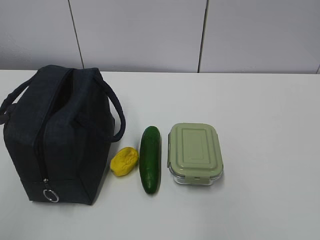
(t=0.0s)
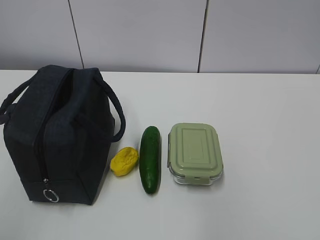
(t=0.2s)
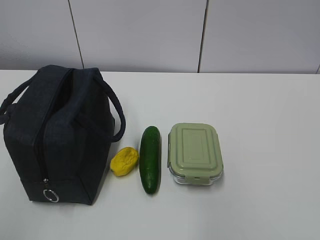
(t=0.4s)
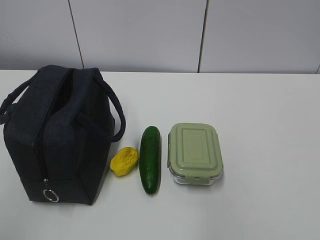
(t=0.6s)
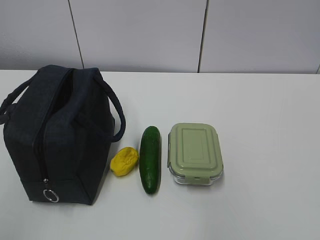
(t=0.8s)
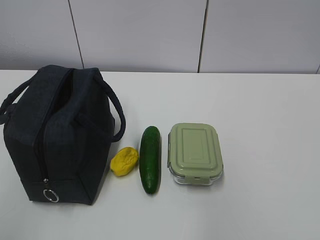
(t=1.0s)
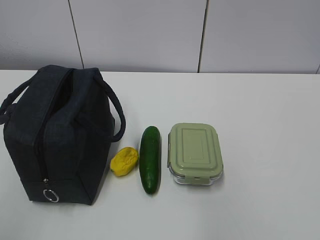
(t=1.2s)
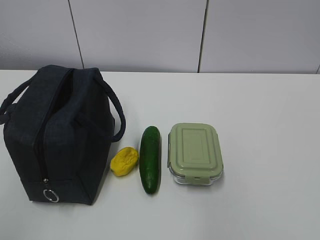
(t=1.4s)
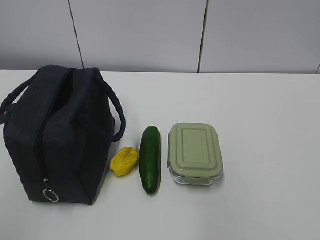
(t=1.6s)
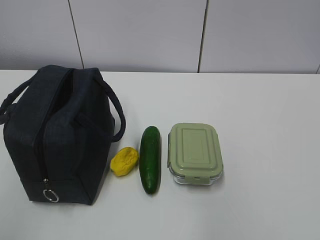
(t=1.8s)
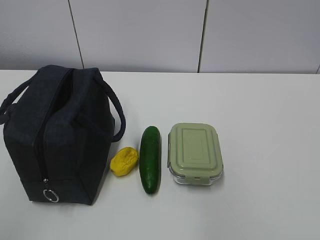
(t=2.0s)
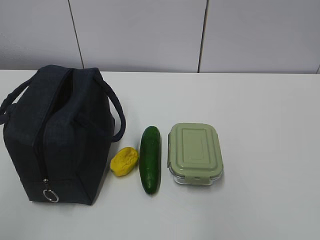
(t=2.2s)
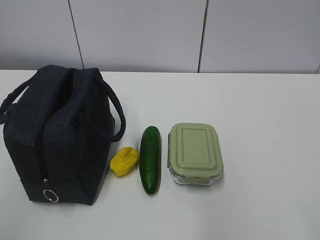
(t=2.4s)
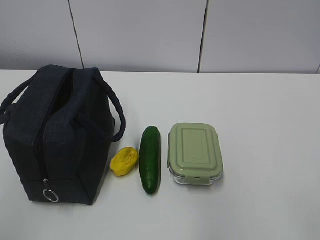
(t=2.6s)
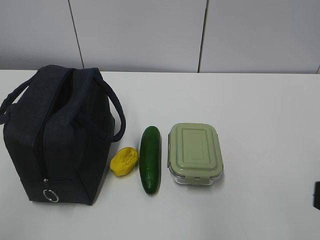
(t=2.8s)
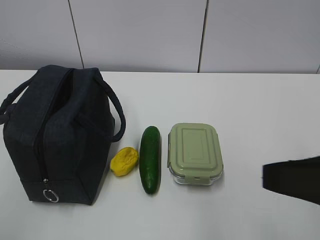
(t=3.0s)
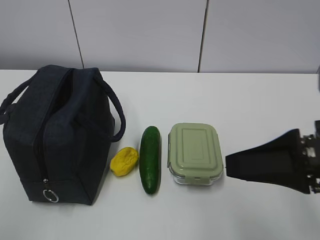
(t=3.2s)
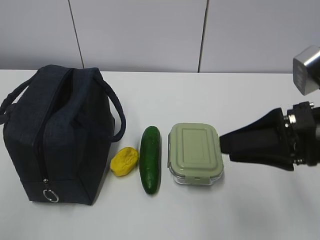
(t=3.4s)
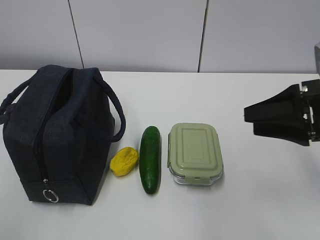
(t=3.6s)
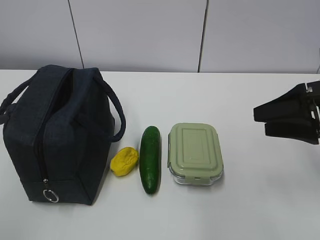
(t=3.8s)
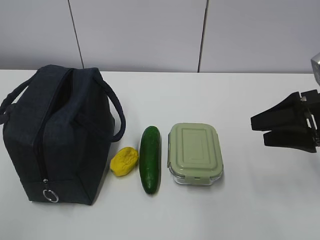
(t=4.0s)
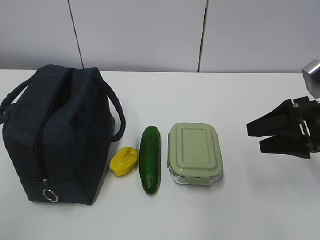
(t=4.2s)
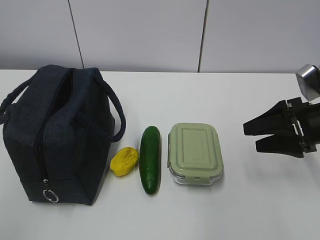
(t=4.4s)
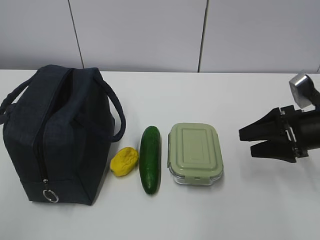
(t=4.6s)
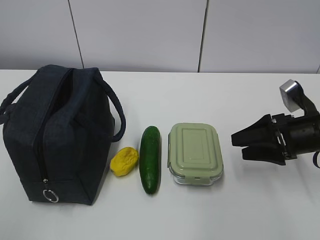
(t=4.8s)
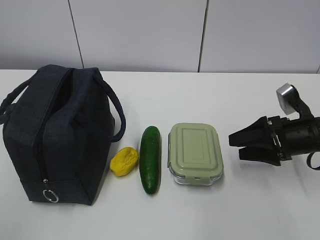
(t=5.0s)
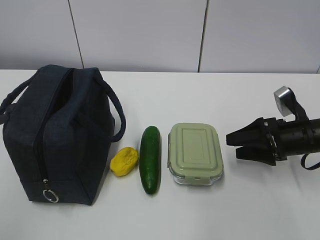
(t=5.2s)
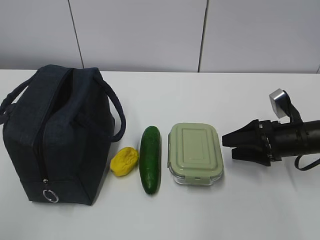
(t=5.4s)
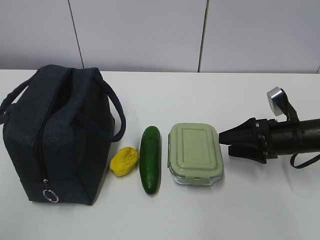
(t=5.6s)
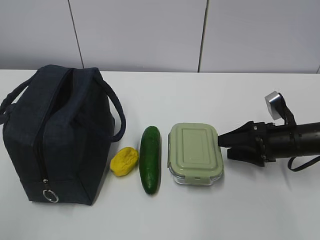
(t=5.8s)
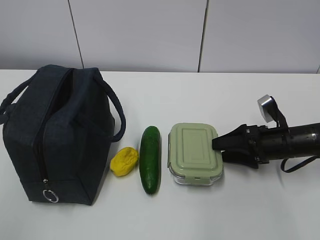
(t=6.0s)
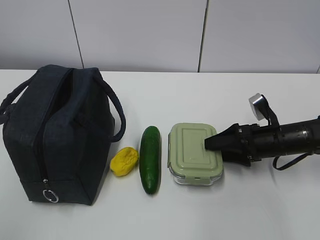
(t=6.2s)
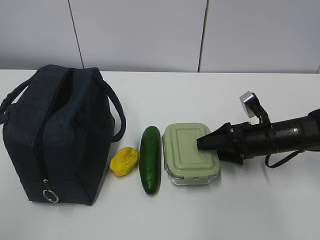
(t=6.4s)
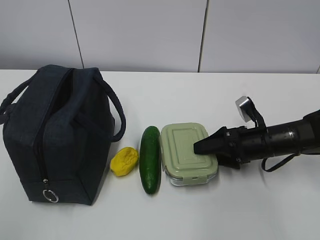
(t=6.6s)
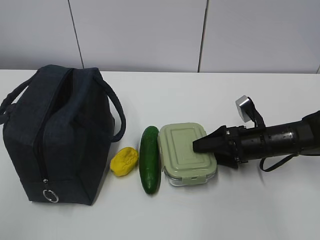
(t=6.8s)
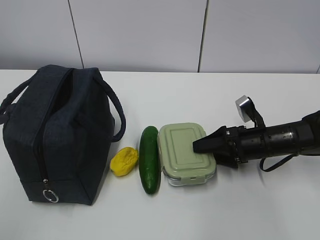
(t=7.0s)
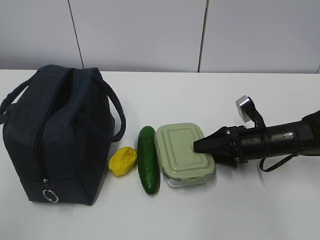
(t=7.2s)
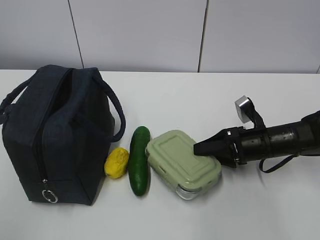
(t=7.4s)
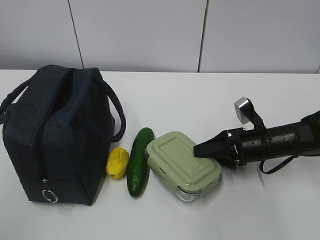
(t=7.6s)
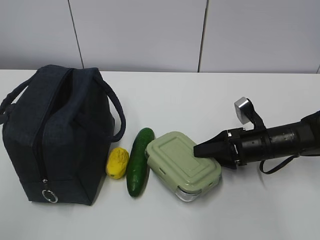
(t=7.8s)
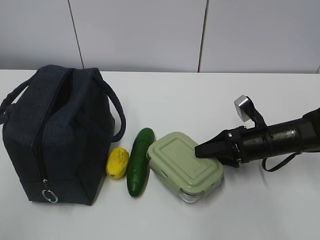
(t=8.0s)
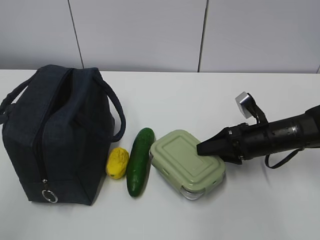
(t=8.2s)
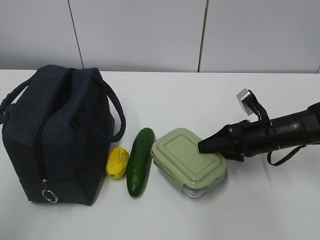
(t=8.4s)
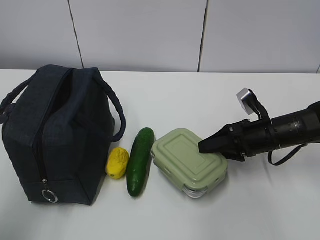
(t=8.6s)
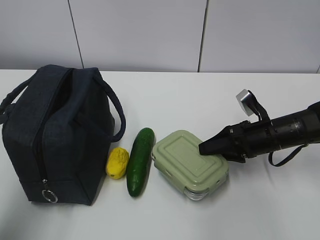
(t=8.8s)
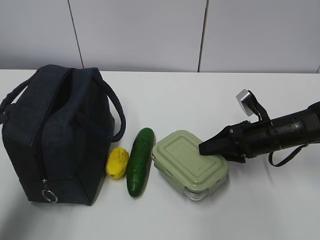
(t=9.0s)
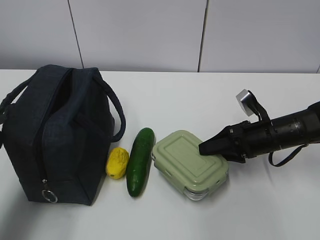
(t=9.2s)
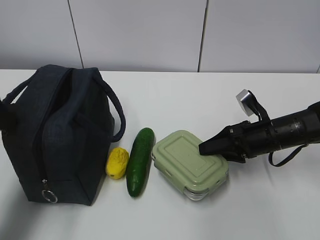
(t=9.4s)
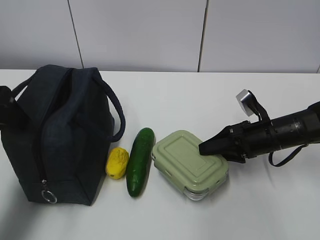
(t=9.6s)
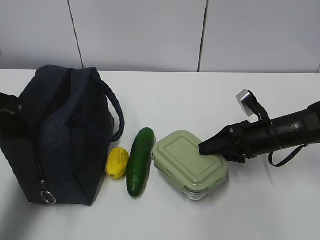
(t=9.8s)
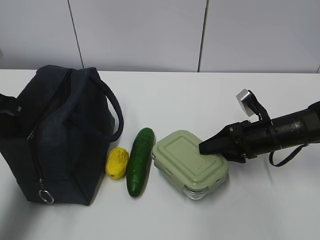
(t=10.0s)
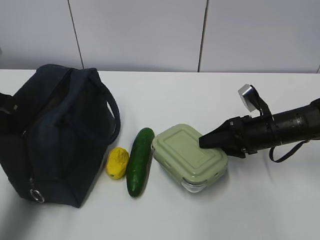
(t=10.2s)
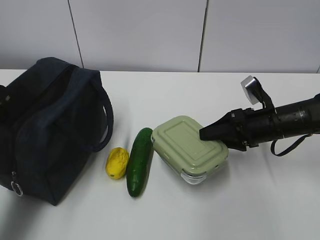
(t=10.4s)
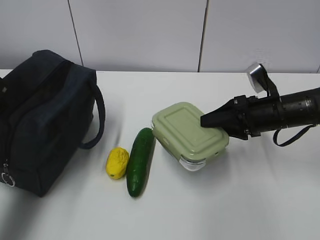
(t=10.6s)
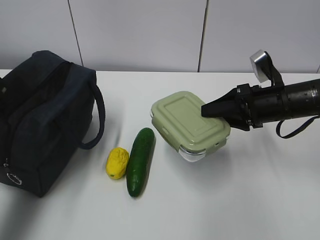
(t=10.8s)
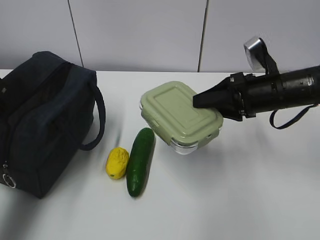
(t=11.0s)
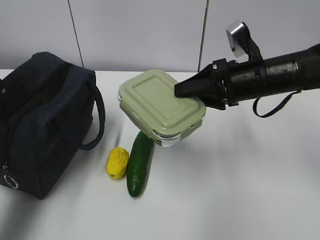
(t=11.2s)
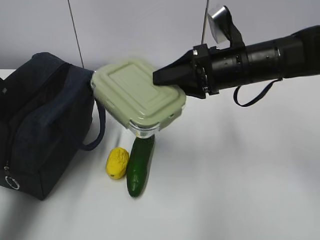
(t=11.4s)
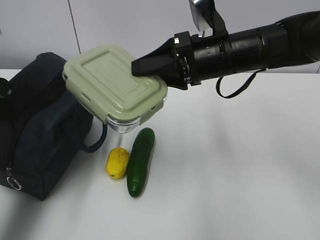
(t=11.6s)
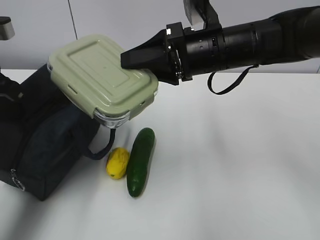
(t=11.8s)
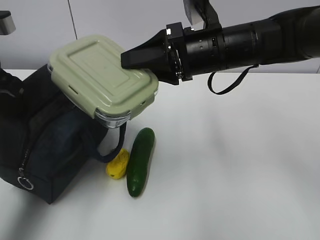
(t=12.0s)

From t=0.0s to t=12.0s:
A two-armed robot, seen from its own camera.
Step, from t=0.0s to t=8.2s: Grab the lunch box with your right hand.
Step, from t=8.4s to t=10.0s: Grab the lunch bag with your left hand.
From t=1.6s to t=3.0s: The right gripper heads forward and to the left, covering approximately 15 cm.
From t=3.0s to t=4.4s: The right gripper moves forward, downward and to the right, approximately 25 cm, and opens up.
From t=4.4s to t=6.0s: The right gripper travels downward by about 10 cm.
From t=6.0s to t=7.6s: The right gripper closes its fingers.
From t=7.6s to t=9.0s: The left gripper moves forward, some 15 cm.
From t=9.0s to t=10.4s: The left gripper heads forward, covering some 15 cm, and closes its fingers.
From t=10.4s to t=12.0s: The right gripper moves upward and to the left, about 20 cm.

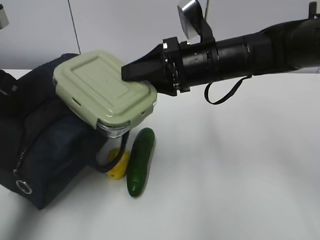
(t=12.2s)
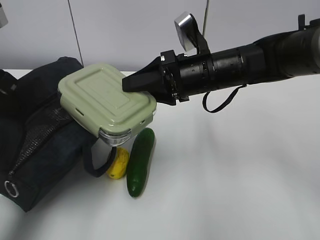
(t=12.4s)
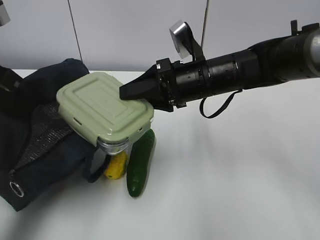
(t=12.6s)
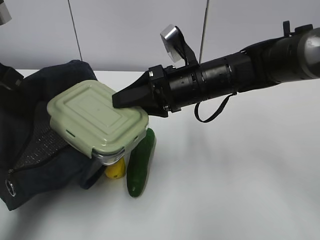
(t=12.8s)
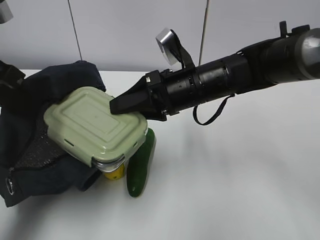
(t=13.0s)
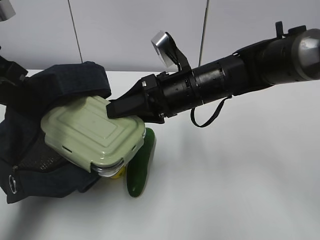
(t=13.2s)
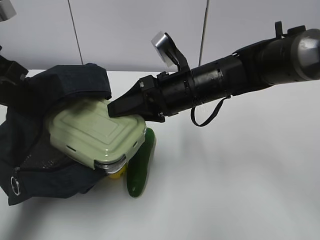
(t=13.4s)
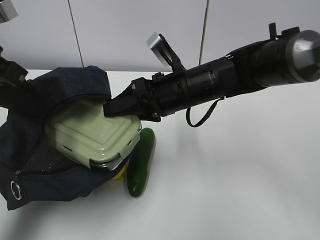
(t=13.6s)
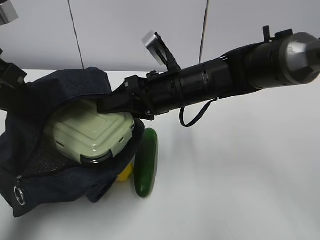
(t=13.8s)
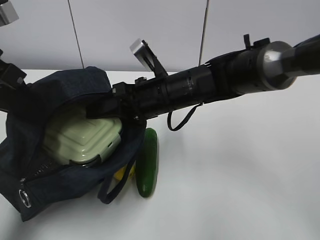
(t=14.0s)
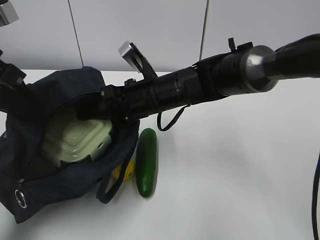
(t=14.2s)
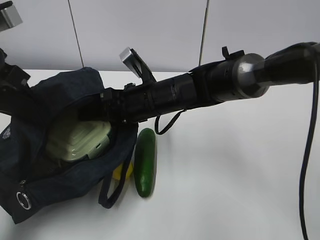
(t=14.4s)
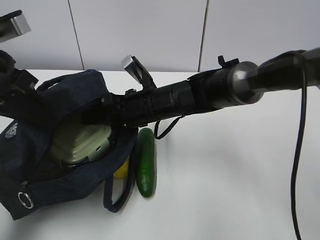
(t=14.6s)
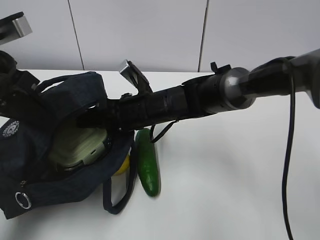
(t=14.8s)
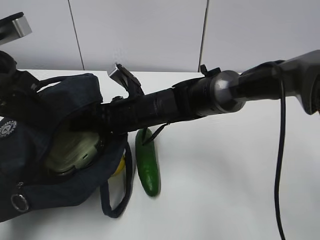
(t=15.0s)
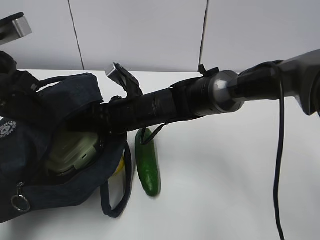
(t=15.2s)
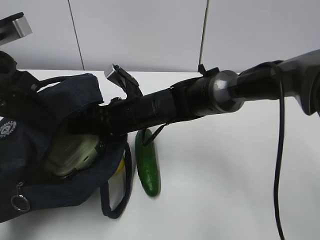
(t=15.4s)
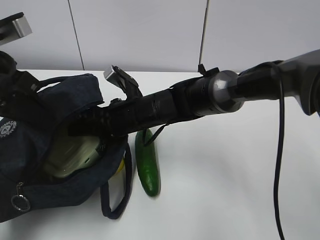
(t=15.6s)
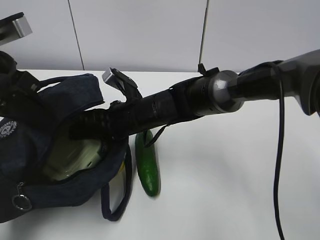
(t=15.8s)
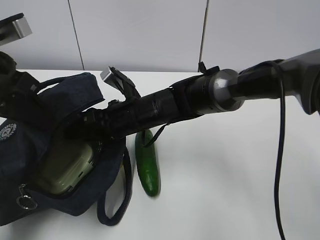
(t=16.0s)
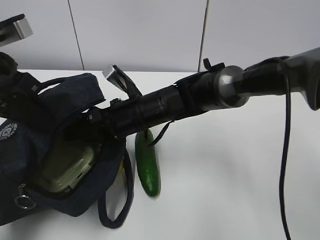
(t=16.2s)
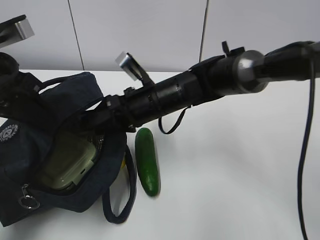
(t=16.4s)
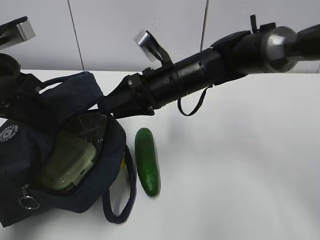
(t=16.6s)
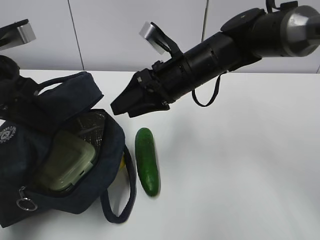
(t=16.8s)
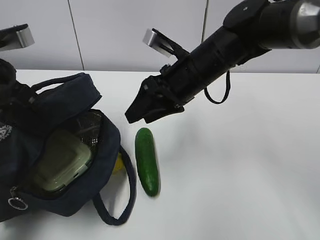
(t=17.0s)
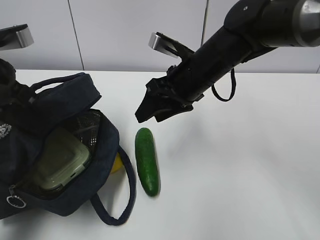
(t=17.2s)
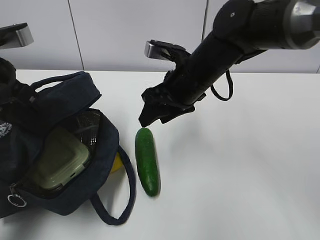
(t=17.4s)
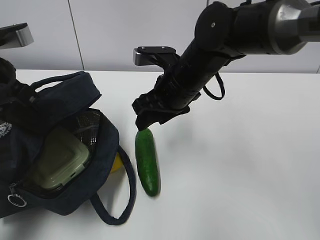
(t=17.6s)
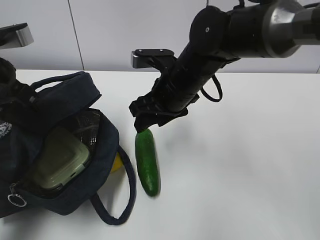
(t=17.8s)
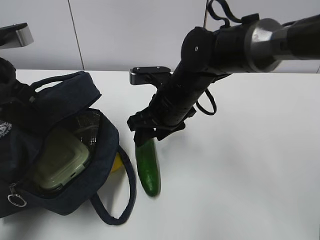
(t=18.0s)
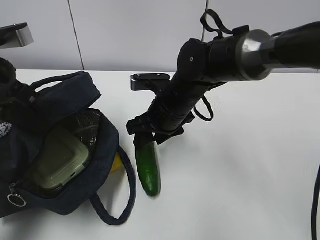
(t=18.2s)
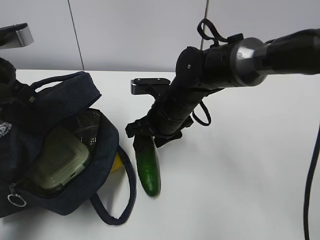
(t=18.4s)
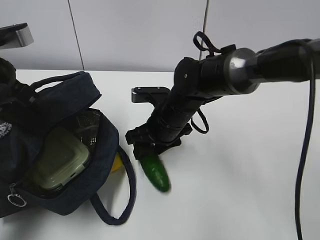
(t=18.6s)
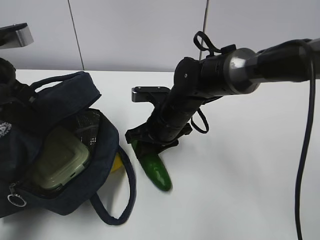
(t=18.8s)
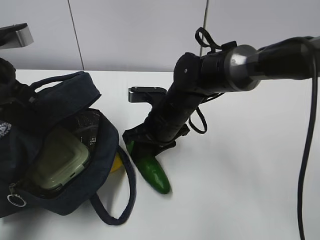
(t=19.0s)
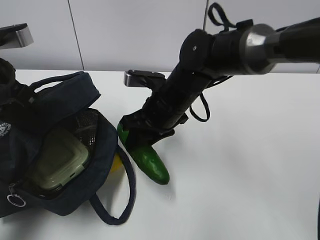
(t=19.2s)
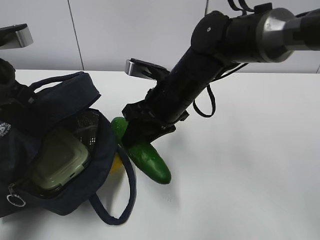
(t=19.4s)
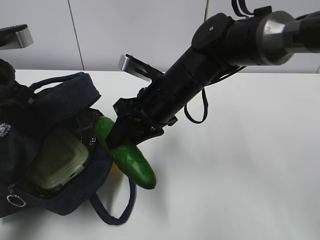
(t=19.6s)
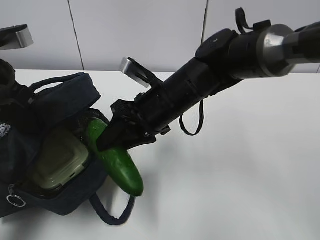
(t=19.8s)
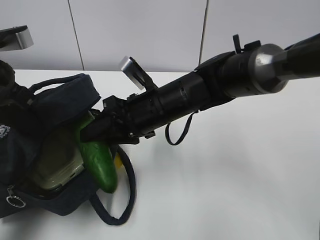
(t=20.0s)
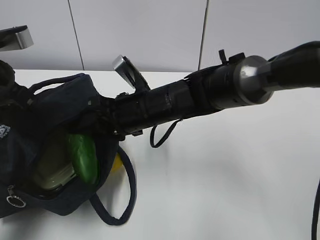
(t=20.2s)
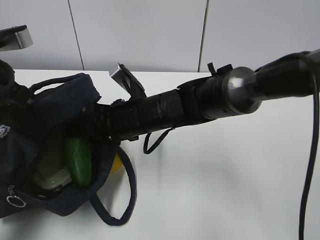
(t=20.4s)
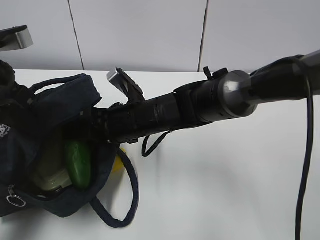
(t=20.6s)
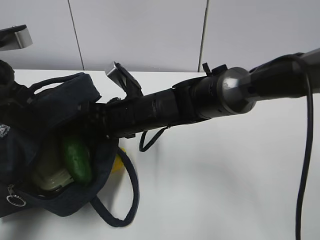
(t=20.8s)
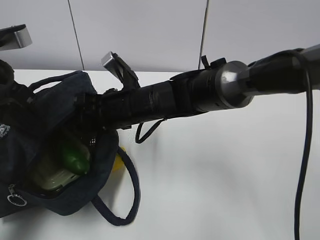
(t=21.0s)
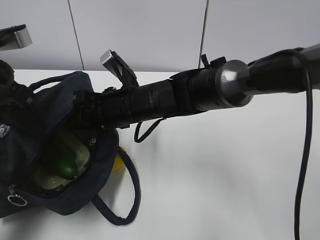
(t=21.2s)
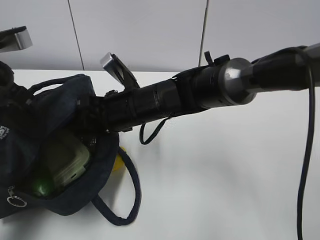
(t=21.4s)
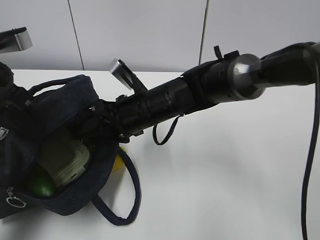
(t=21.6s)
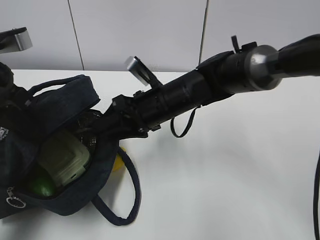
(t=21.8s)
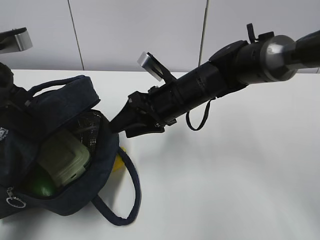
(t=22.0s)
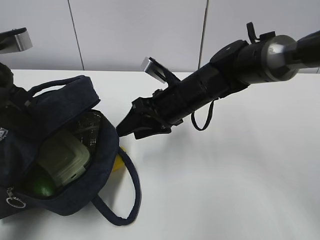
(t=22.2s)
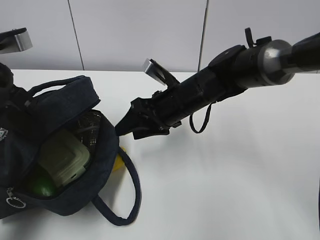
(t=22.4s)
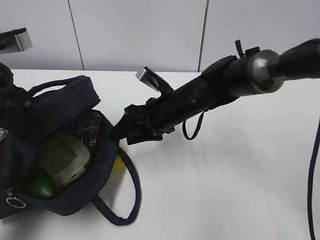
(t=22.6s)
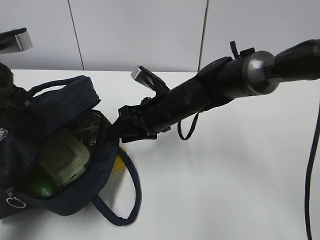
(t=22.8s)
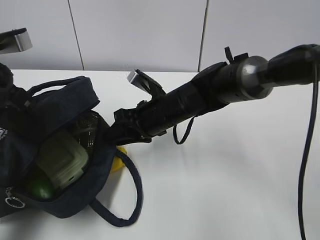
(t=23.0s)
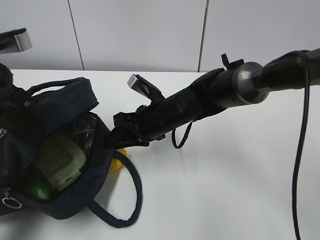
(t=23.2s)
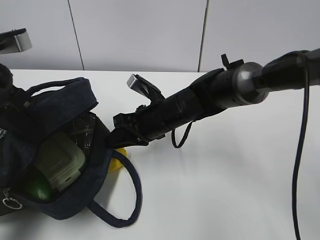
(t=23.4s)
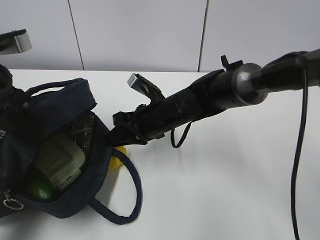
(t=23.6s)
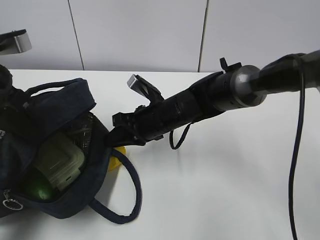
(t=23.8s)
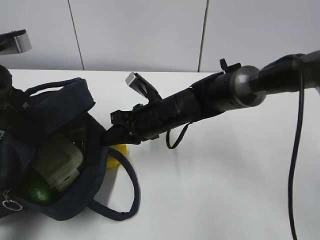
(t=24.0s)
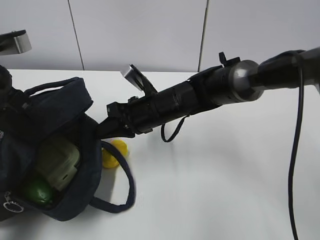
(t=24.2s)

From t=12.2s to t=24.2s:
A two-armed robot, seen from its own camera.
Step, from t=13.6s to t=15.6s: Grab the cucumber with your right hand.
Step, from t=15.8s to t=17.8s: Place it into the bag with your right hand.
From t=12.2s to t=13.8s: The right gripper moves some 5 cm.
From t=13.8s to t=15.2s: The right gripper heads to the left and downward, covering roughly 10 cm.
From t=15.2s to t=16.6s: The right gripper is displaced to the right and upward by some 10 cm.
From t=19.8s to t=21.2s: The right gripper moves to the left, some 5 cm.
From t=21.2s to t=22.6s: The right gripper goes roughly 10 cm to the right.
From t=22.6s to t=24.2s: The right gripper closes its fingers.
